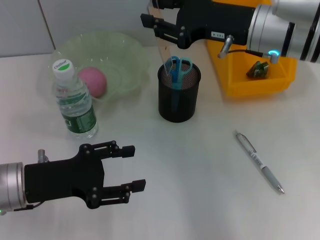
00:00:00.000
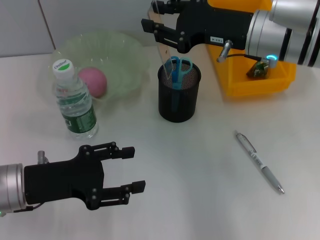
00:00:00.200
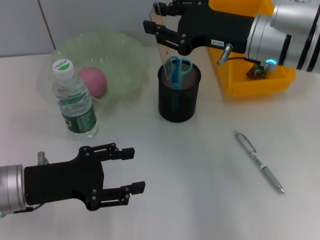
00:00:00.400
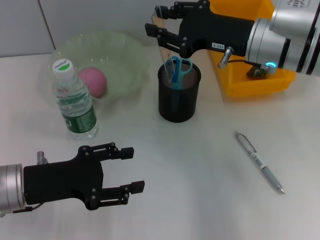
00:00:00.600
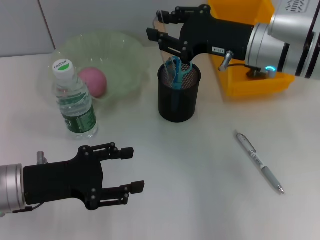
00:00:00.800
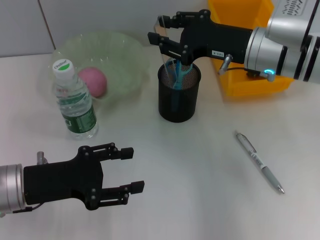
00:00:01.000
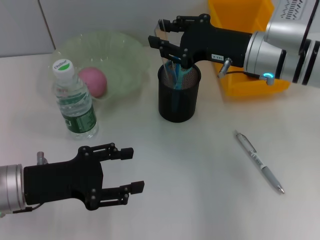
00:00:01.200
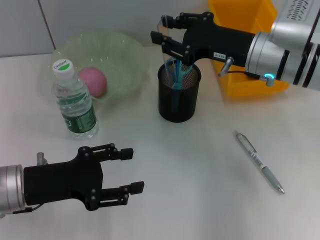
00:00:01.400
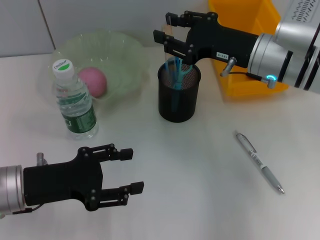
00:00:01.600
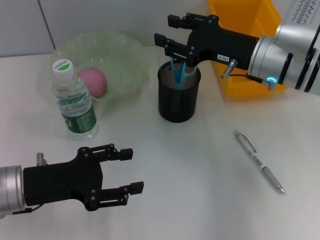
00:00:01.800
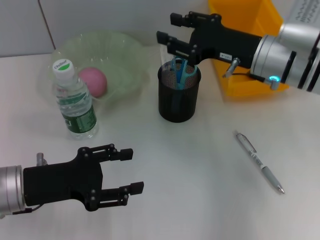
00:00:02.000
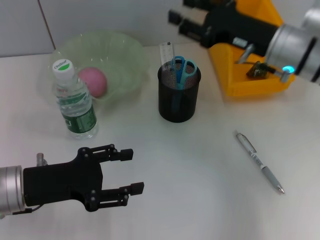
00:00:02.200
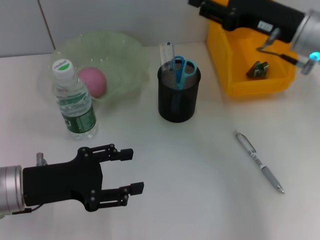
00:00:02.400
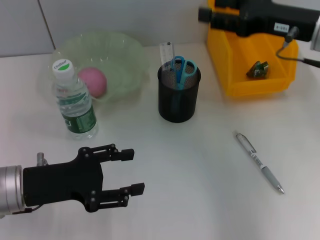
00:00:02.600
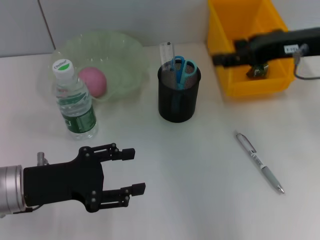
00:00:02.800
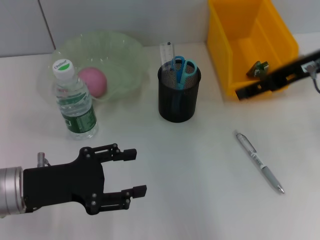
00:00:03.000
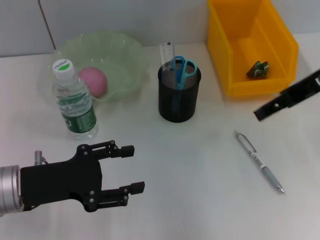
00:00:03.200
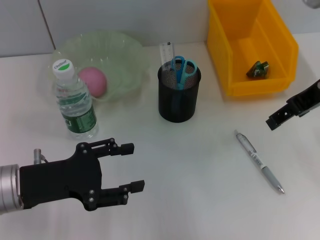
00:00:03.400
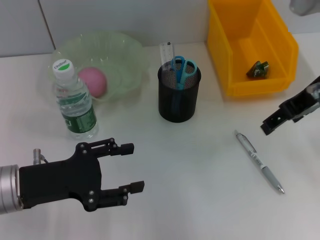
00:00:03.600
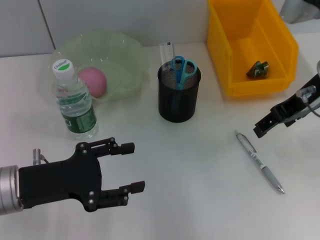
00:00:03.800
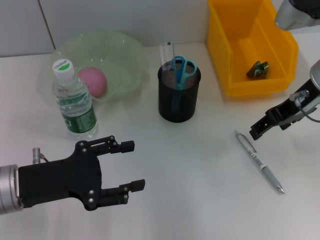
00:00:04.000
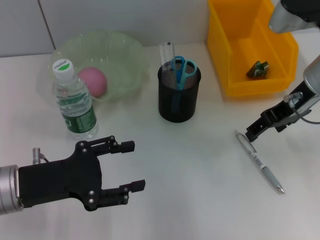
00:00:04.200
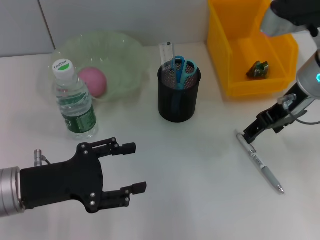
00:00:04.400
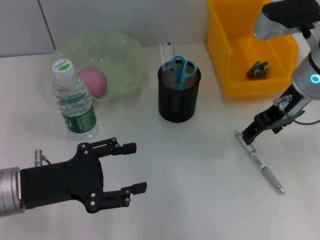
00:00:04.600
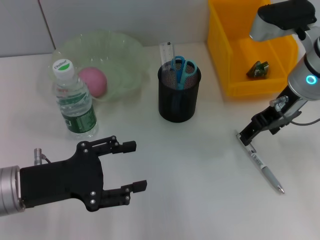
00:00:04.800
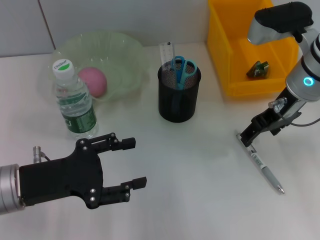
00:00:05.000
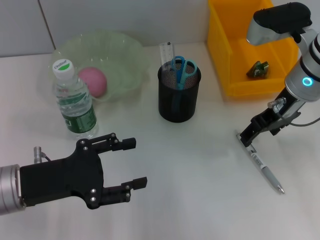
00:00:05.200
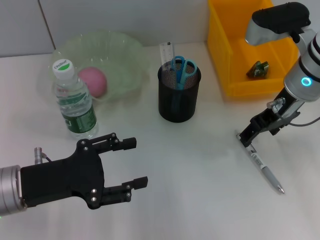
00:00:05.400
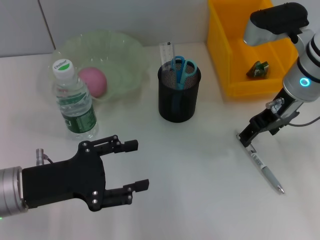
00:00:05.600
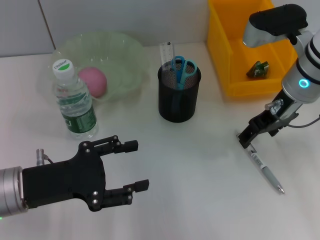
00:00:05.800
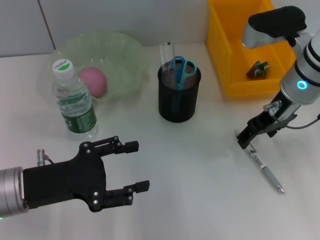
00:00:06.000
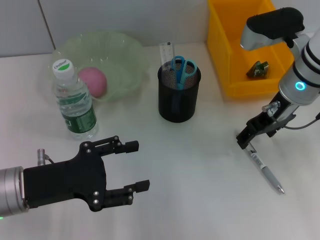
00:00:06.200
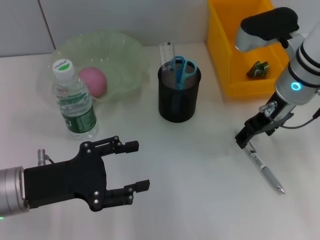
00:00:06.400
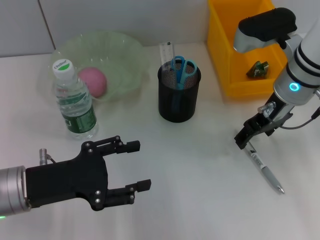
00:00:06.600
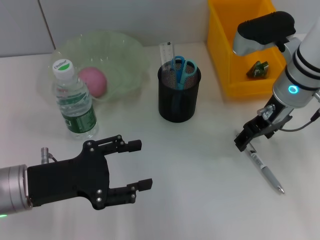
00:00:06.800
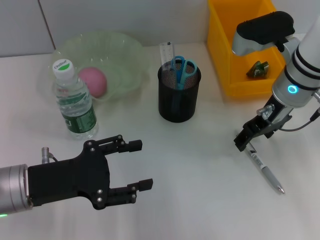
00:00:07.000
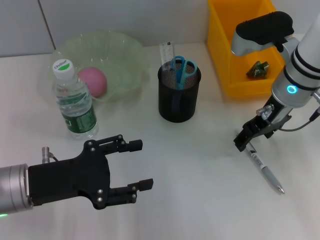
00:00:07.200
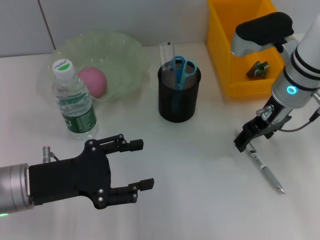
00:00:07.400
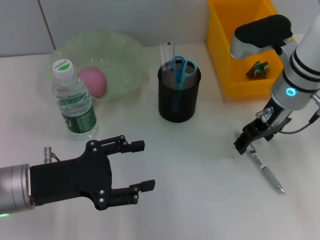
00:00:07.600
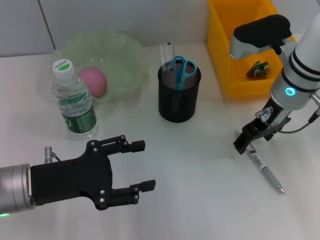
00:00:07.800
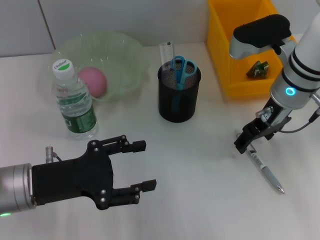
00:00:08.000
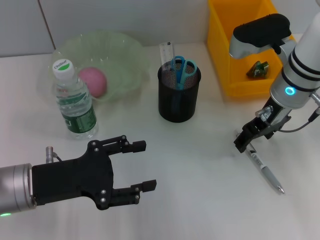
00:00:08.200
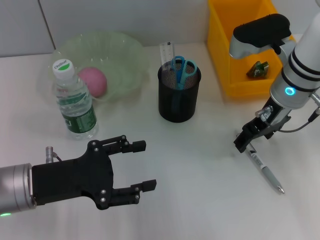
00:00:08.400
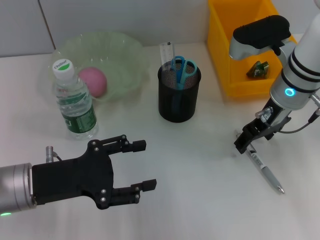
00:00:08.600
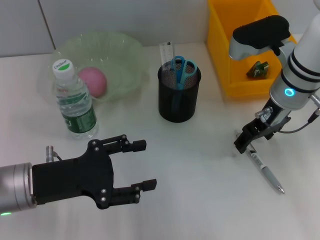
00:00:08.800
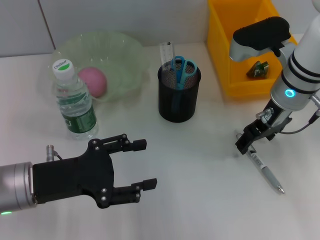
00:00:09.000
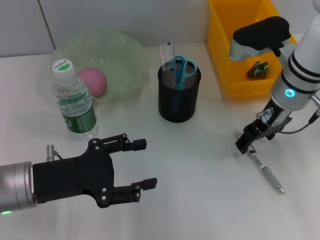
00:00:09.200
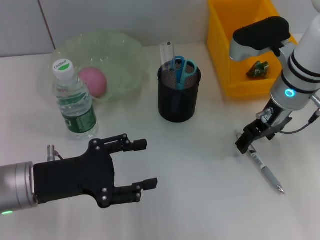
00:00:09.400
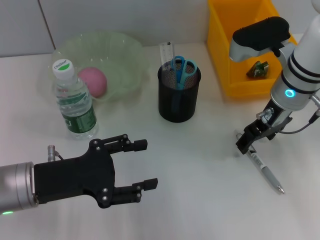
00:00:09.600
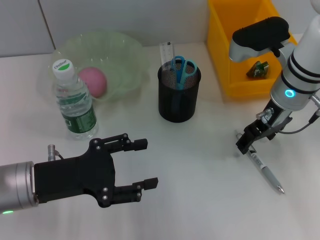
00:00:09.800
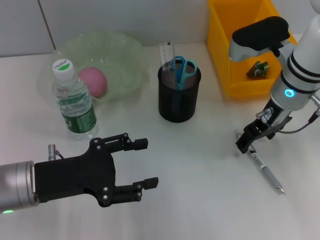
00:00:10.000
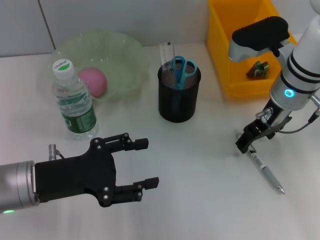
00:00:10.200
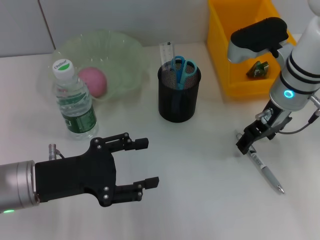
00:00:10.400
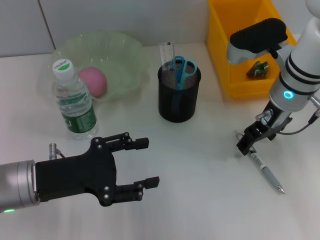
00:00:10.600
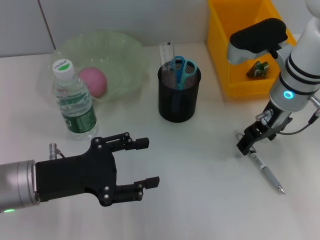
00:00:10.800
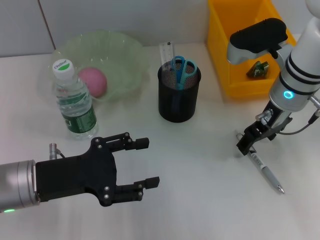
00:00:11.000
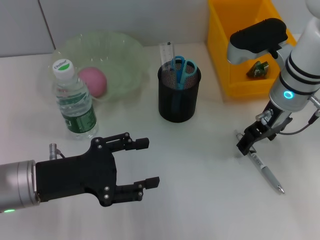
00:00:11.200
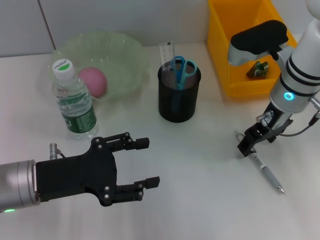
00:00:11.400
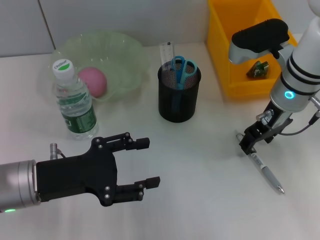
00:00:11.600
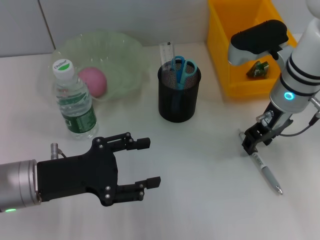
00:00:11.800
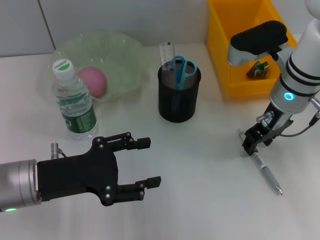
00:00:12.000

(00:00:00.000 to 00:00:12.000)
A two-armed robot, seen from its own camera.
Step, 00:00:00.000 - 00:00:01.800: Place the ruler into the pen holder with the right hand.
00:00:00.000 - 00:00:01.600: The grippers move only a little.
00:00:01.600 - 00:00:03.000: The right gripper heads upward and to the right, covering roughly 10 cm, and opens.
00:00:03.000 - 00:00:04.400: The right gripper travels downward by some 5 cm.
00:00:04.400 - 00:00:07.600: The grippers move only a little.
00:00:07.600 - 00:00:12.000: Both grippers stay about where they are.

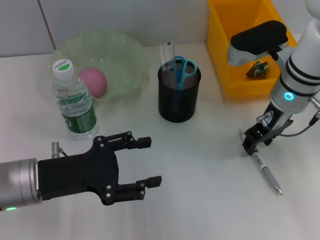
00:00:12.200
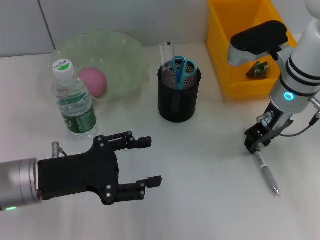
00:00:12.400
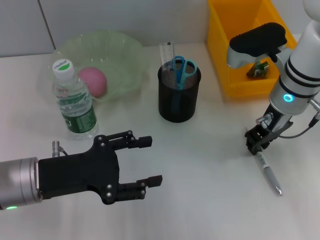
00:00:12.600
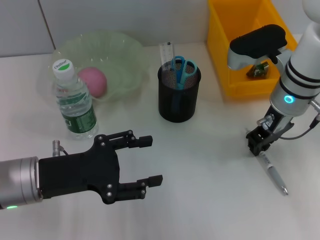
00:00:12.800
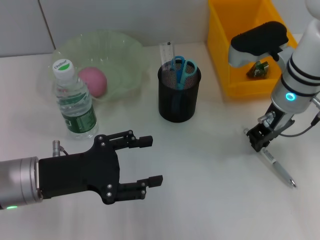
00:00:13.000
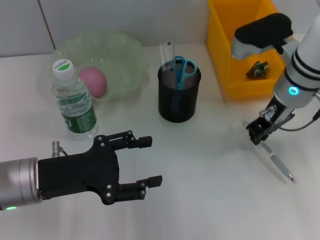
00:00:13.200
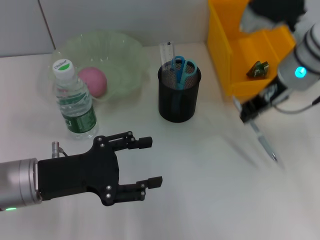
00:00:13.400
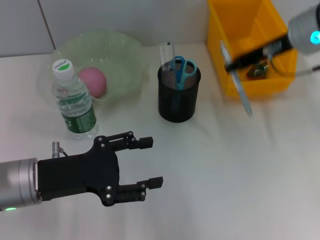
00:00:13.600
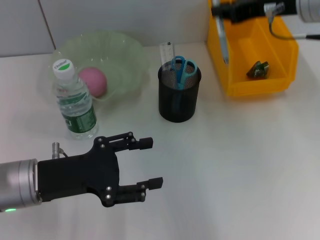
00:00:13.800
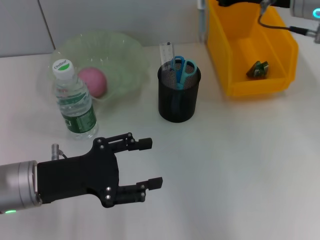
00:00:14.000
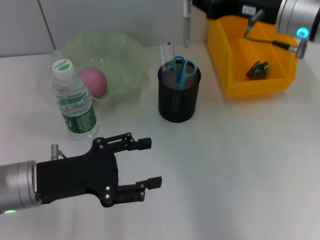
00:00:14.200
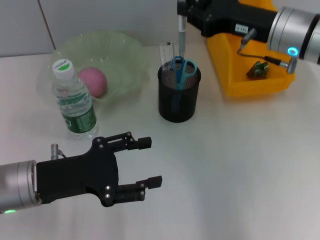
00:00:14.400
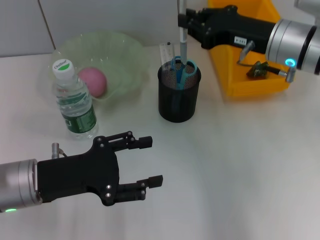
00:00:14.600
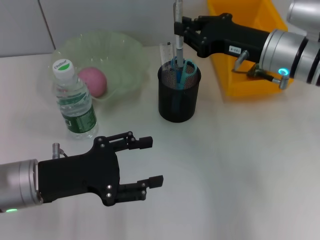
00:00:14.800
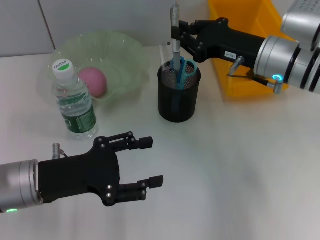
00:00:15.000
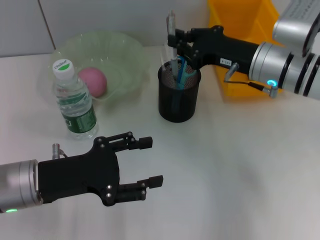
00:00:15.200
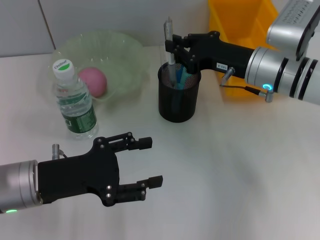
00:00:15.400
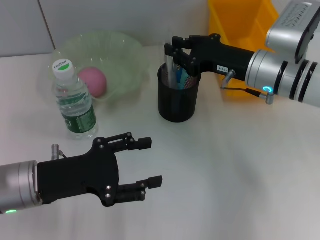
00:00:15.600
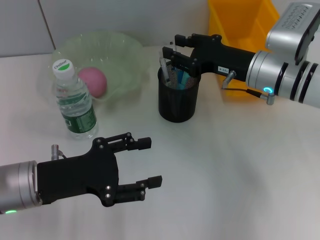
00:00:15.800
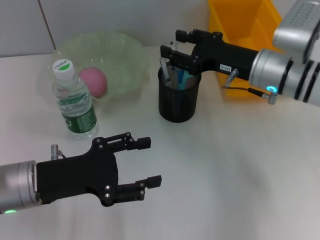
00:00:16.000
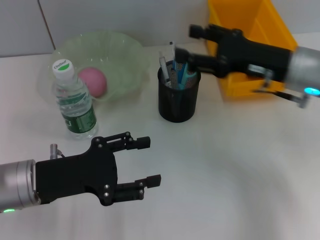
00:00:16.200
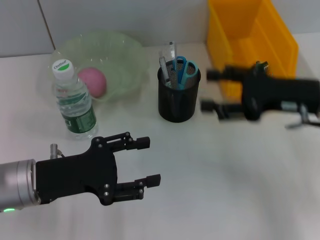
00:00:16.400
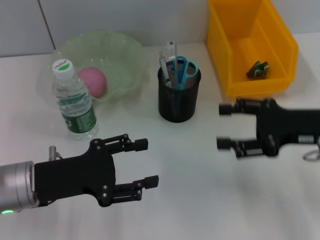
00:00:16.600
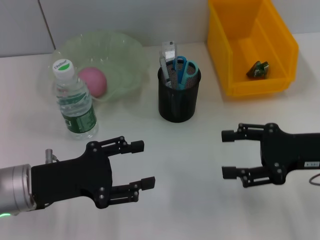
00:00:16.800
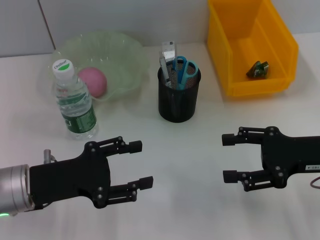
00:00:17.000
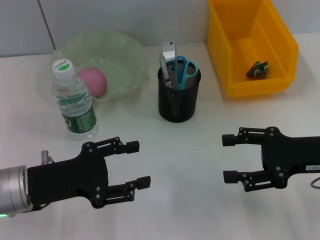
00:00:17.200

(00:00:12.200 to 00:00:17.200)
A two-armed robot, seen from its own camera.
Step, 00:00:13.000 - 00:00:15.600: Place the gray spring-action pen into the pen holder with the right hand.
00:00:12.200 - 00:00:13.800: The right gripper heads upward, covering roughly 10 cm, and closes its fingers.
00:00:13.800 - 00:00:15.600: The right gripper heads downward, covering some 15 cm.
00:00:15.600 - 00:00:17.200: The right gripper moves backward and to the right, approximately 15 cm, and opens.
